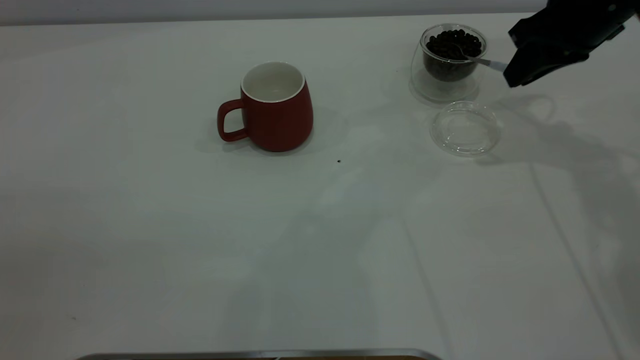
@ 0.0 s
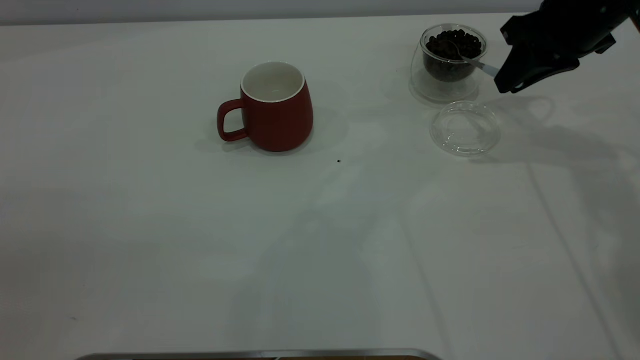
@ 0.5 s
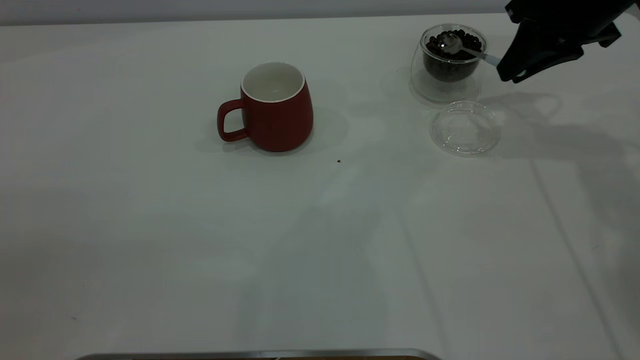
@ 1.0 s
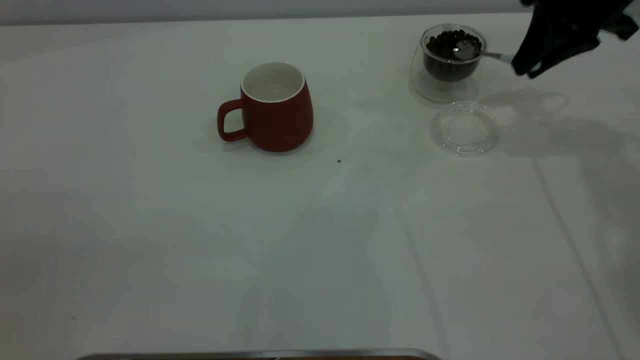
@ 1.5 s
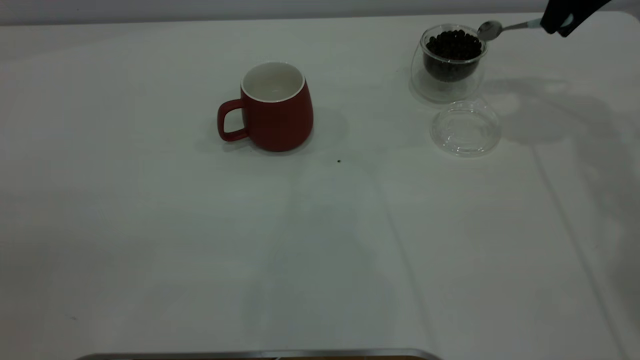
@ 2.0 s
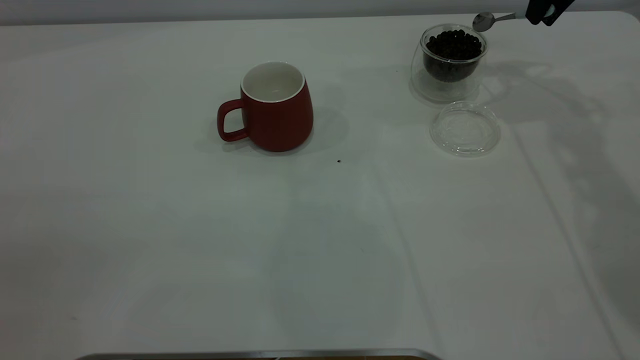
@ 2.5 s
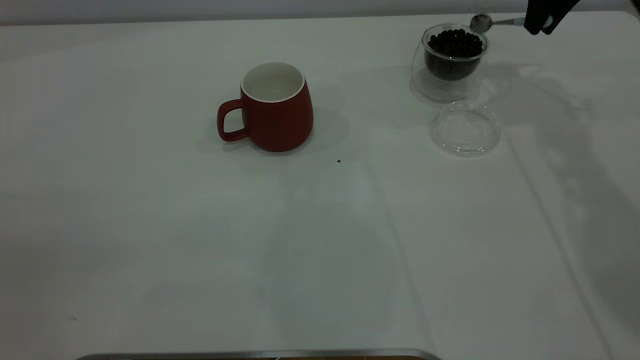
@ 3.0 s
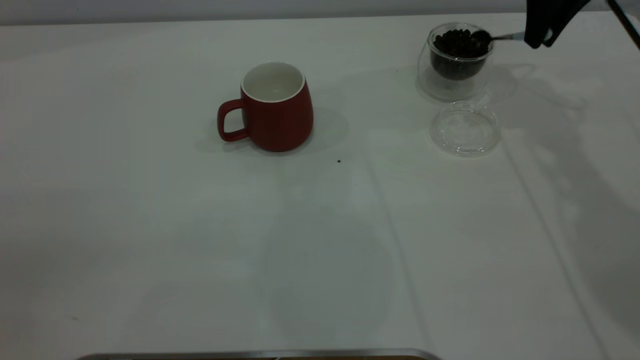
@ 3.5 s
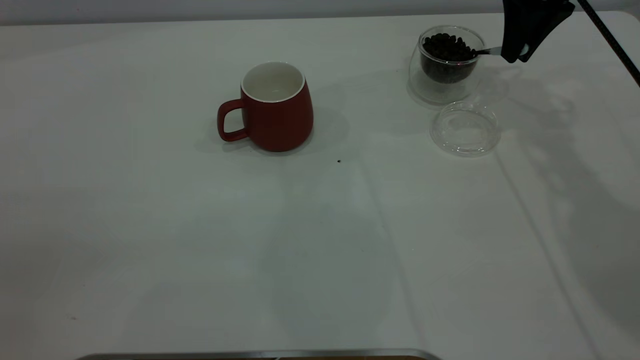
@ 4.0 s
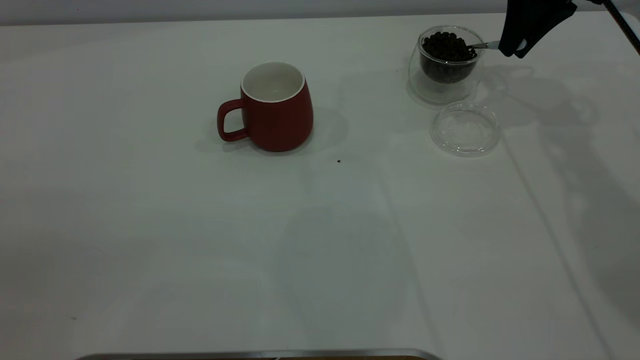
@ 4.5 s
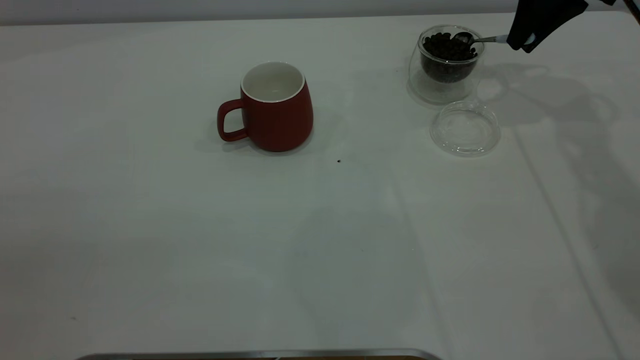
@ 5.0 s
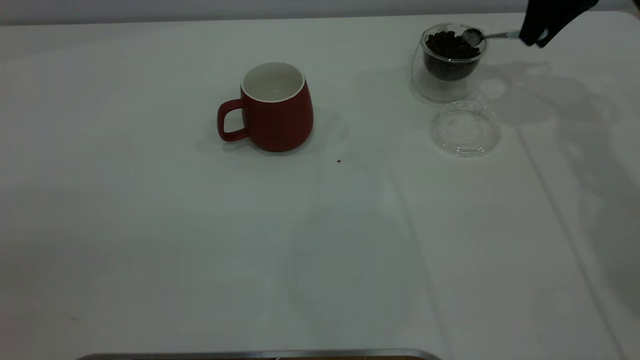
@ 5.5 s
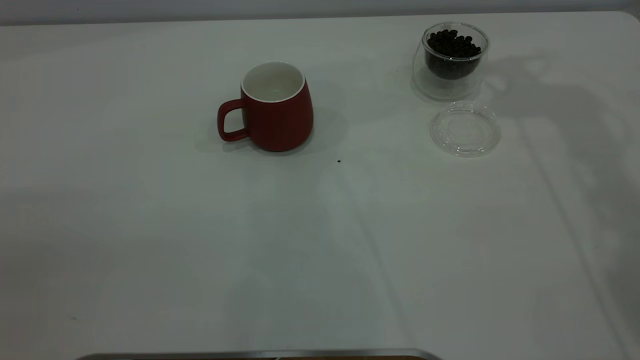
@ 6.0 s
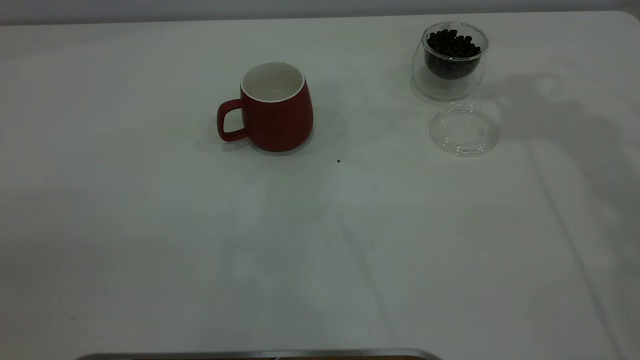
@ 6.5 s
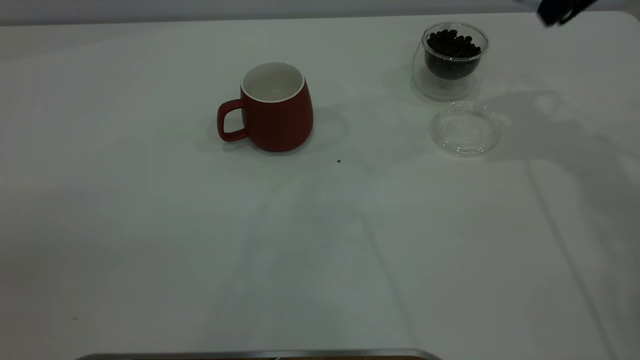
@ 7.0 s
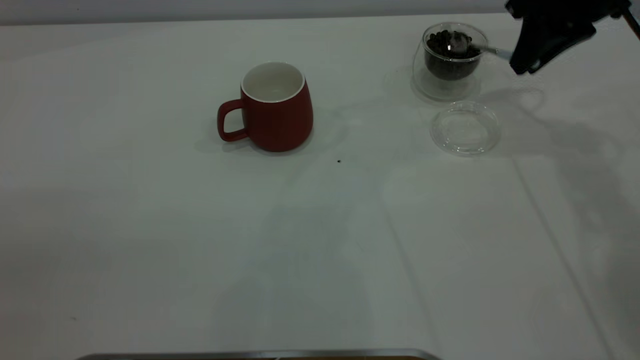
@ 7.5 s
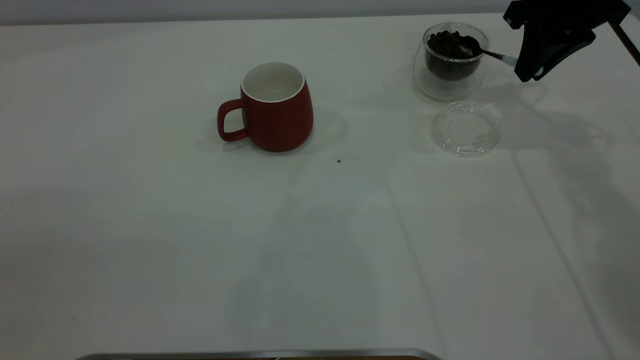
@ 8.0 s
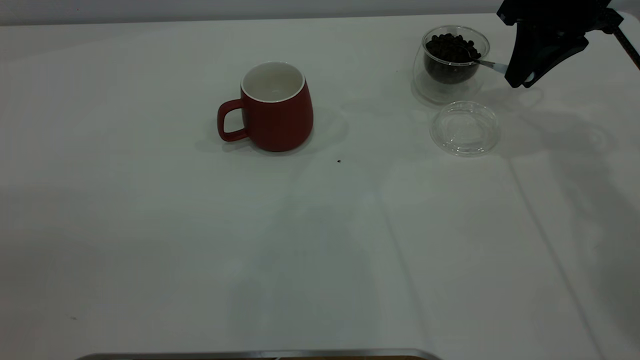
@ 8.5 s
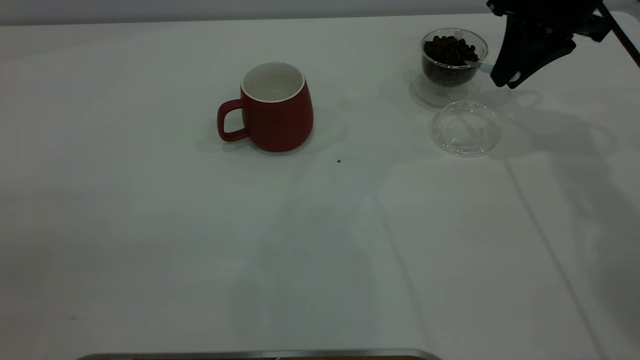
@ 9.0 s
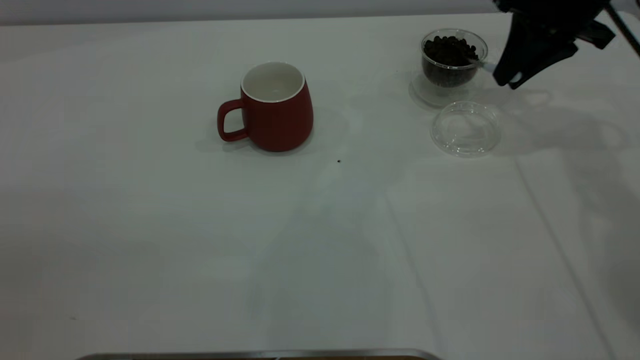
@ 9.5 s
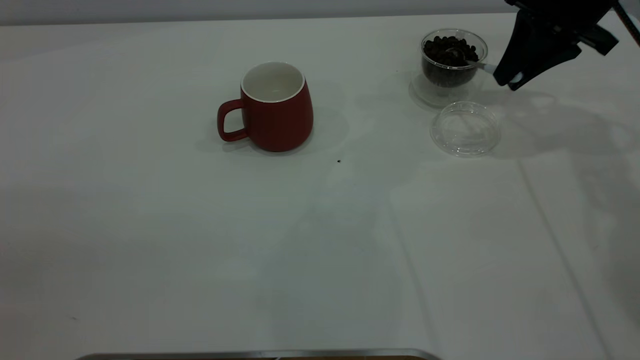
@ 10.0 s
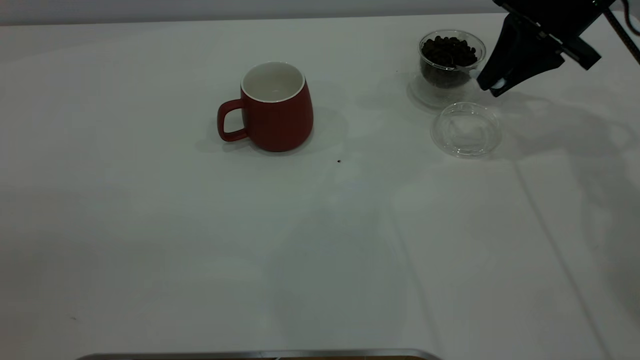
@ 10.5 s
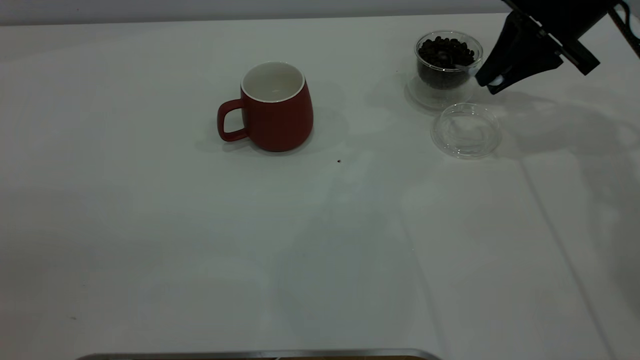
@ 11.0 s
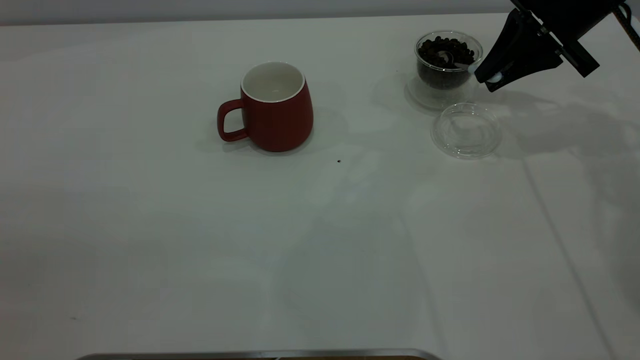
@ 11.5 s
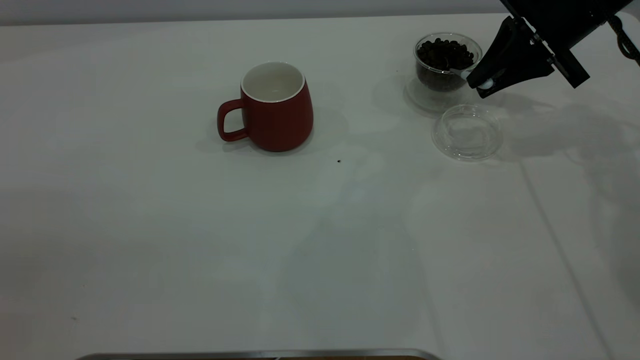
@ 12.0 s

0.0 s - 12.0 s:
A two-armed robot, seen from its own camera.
Task of the whole recording: the left gripper place the red cup in the center of the table, the right gripper take the blue spoon from the cup lid and scoop out the coffee beans from the coffee cup and put them into the red cup, the right gripper put the spoon back into the cup lid.
0.0 s - 2.0 s: The right gripper travels upward by about 5 cm.
2.0 s - 4.0 s: The right gripper moves some 5 cm.
4.0 s - 6.0 s: The right gripper is displaced upward by roughly 15 cm.
6.0 s - 8.0 s: The right gripper shifts some 15 cm downward.
10.0 s - 12.0 s: The grippers make only small movements.

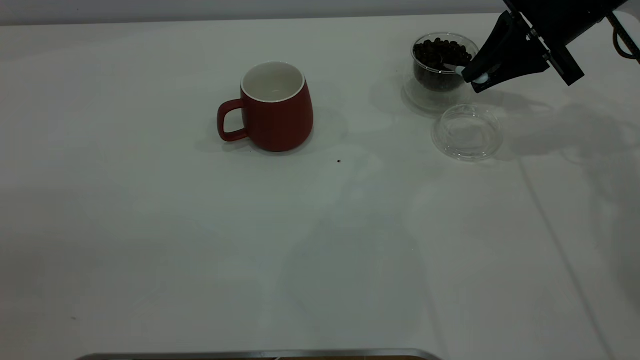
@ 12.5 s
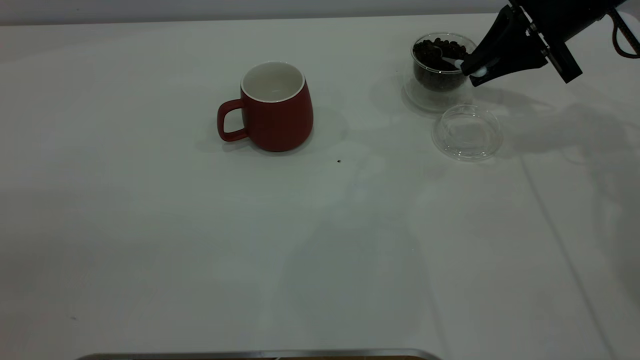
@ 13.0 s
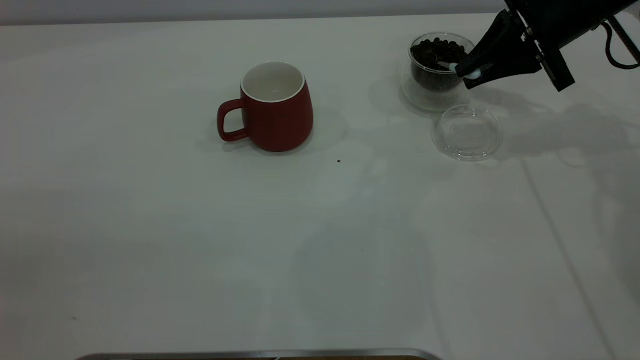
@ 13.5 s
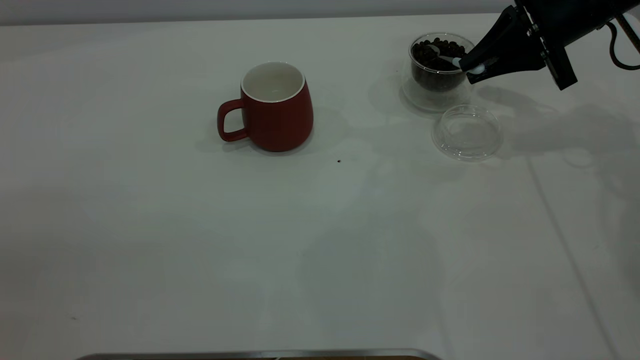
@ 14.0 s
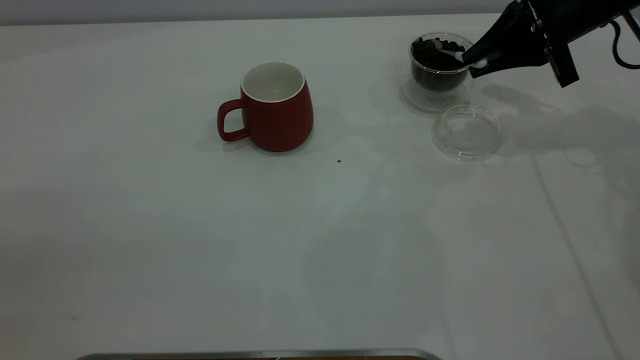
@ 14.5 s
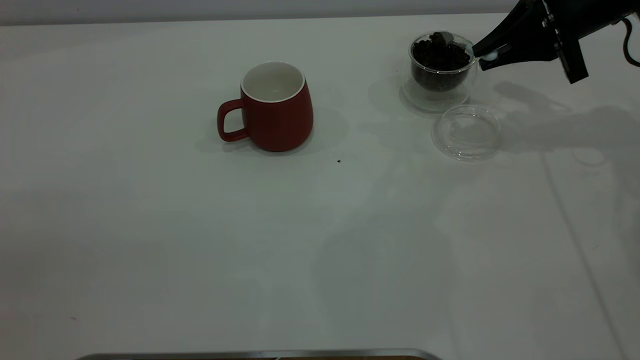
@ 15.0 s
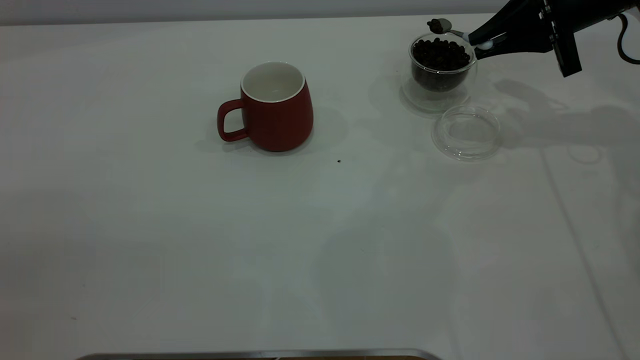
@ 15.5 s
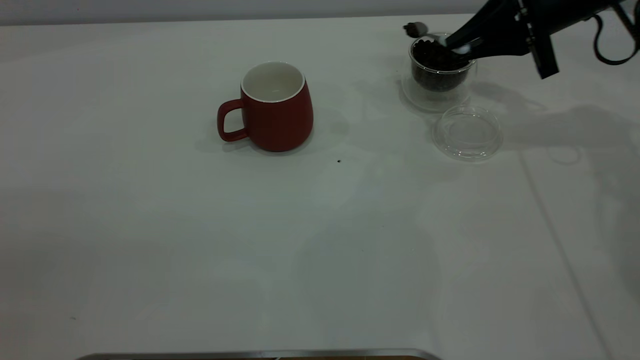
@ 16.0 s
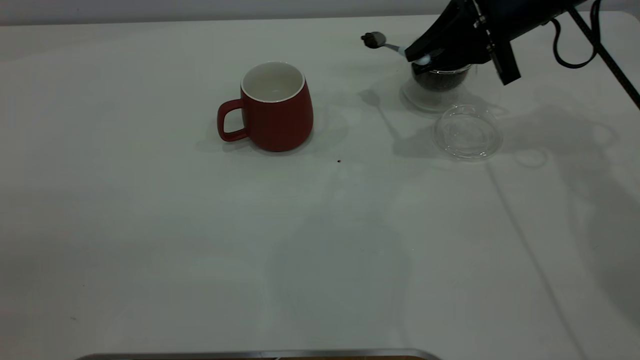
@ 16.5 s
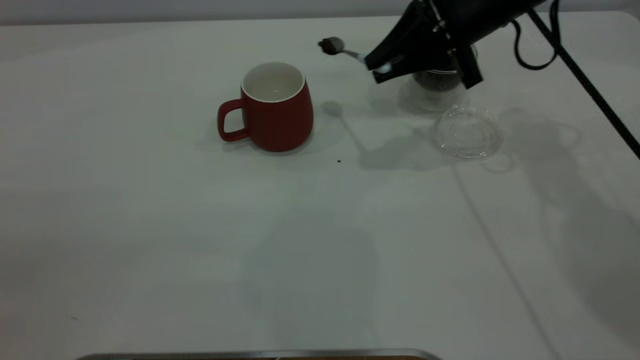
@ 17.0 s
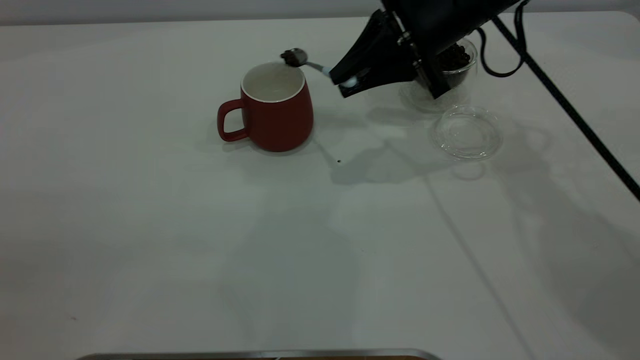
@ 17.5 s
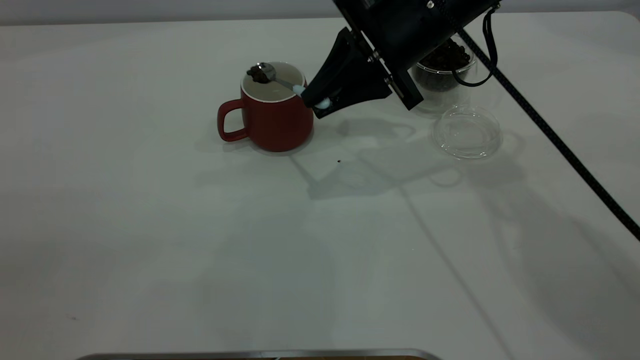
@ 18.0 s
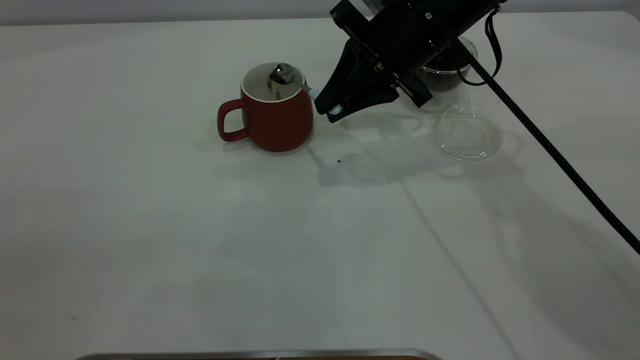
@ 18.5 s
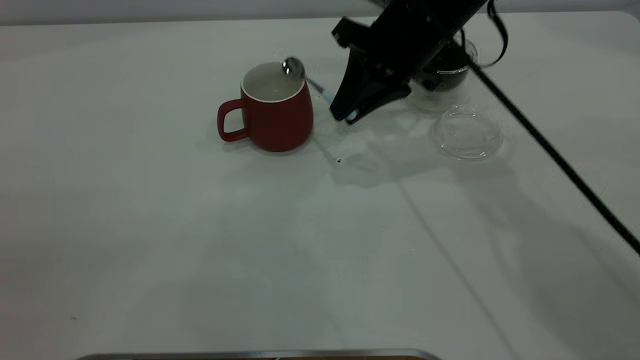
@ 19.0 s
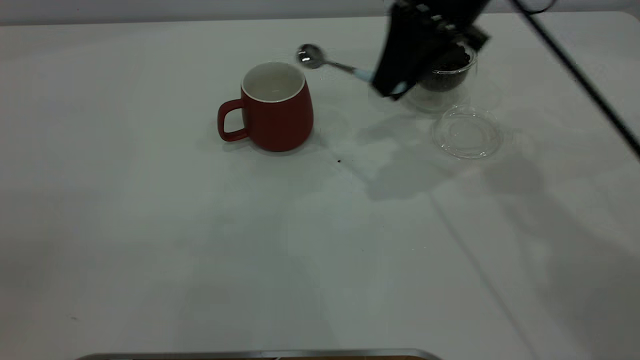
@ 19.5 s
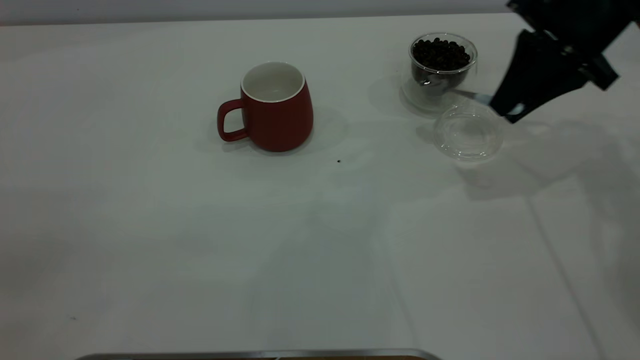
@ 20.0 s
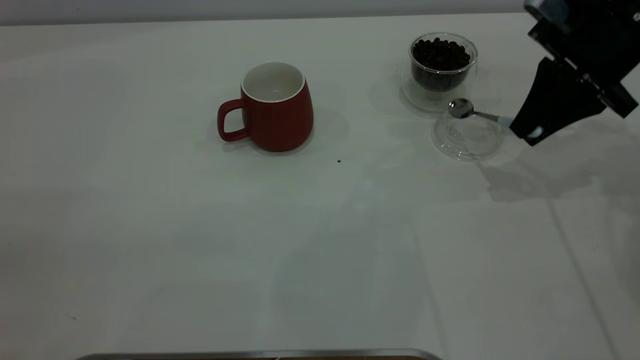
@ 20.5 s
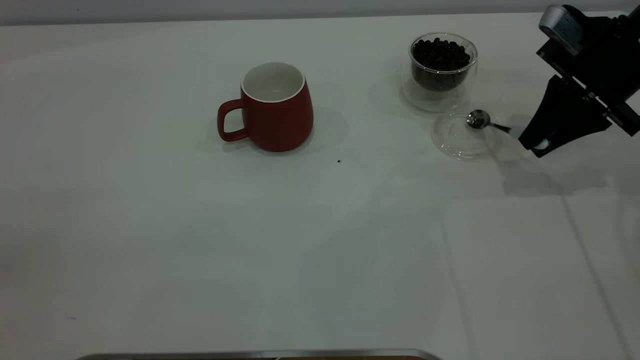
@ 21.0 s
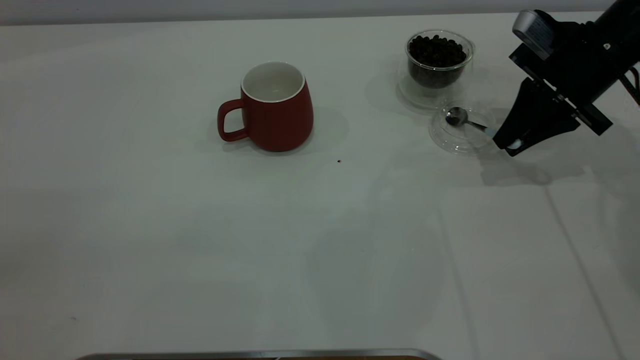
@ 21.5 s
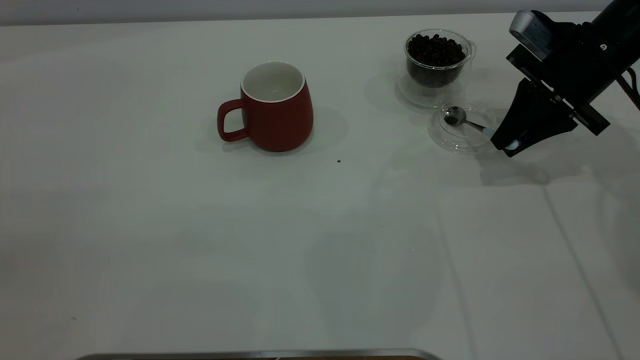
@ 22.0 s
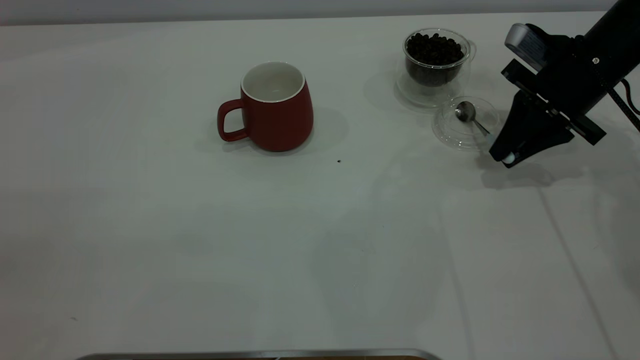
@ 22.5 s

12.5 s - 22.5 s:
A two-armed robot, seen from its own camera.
Task of the whole recording: the left gripper place the red cup in the center of the table, the right gripper take the blue spoon from the cup lid and scoop out the coffee beans from the coffee cup and put them into the red cup, the right gripper put the spoon back into the cup lid.
Step, 12.5 s - 19.0 s: Scoop a spoonful of beans into the cup.
12.5 s - 14.5 s: There are only small adjustments of the grippers.
14.5 s - 16.5 s: The right gripper is displaced to the left by some 5 cm.
16.5 s - 18.5 s: The right gripper shifts approximately 10 cm to the left.
18.5 s - 20.5 s: The right gripper travels to the right by approximately 20 cm.
20.5 s - 22.5 s: The right gripper heads downward, covering roughly 5 cm.
